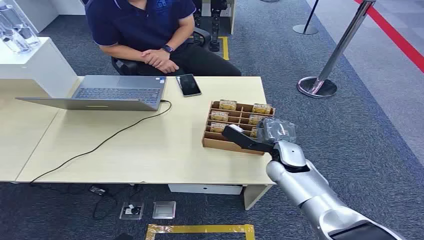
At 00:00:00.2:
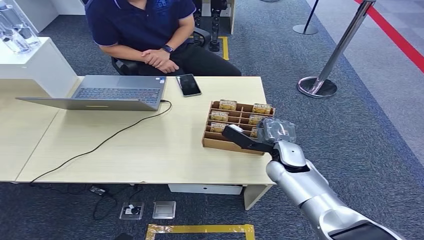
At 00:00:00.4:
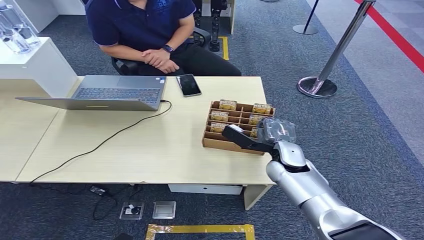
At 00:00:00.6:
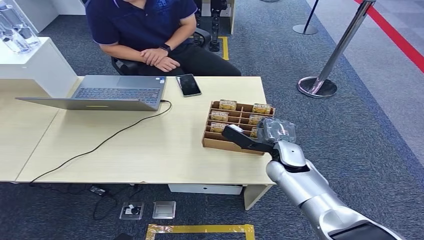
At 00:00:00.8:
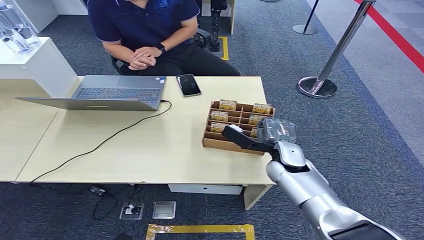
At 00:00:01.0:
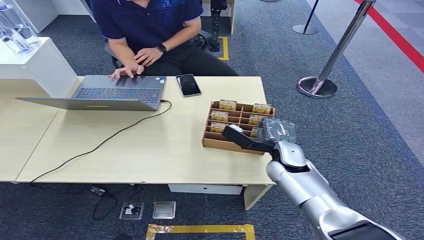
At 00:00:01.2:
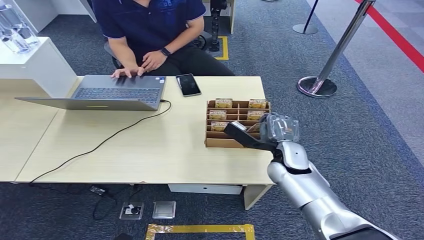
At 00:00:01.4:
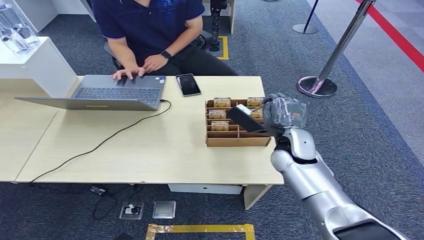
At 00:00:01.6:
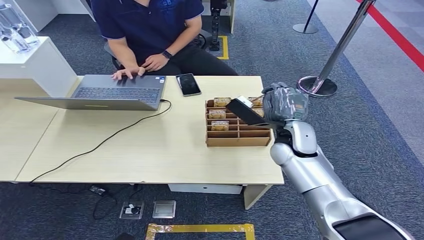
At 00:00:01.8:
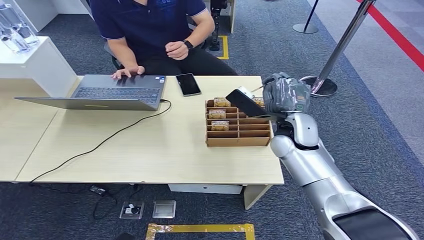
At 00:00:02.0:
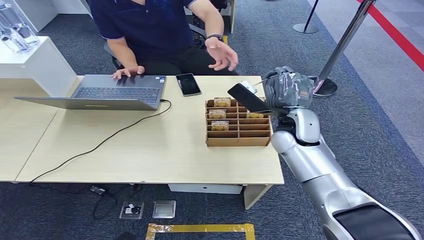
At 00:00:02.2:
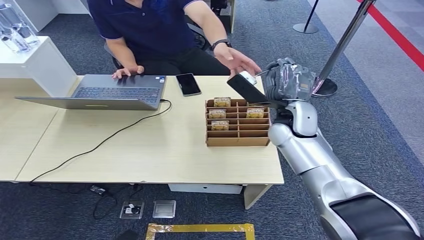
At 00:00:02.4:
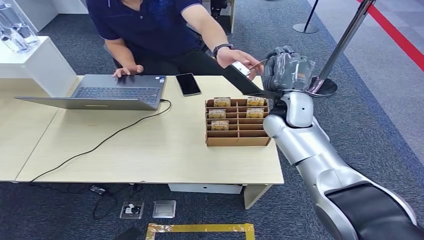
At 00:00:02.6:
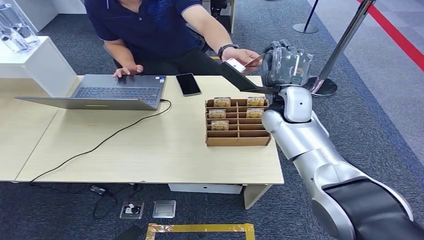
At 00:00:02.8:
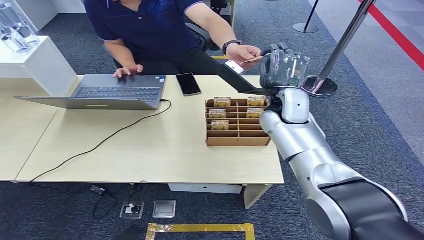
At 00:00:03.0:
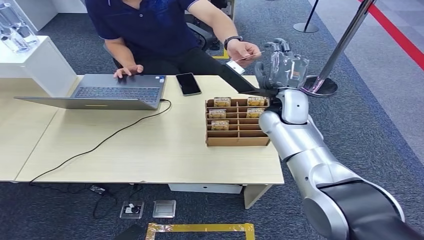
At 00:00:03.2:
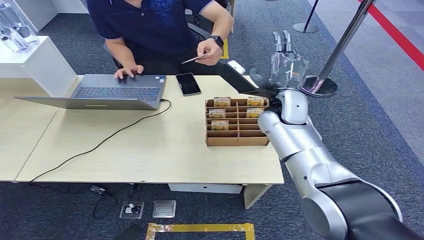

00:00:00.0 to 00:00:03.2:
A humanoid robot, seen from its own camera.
Step, 00:00:00.0 to 00:00:02.0: Pick up the key card from the card box.
Step, 00:00:02.2 to 00:00:03.2: Hand the key card to the target.
00:00:01.6 to 00:00:03.2: The right hand goes about 10 cm upward and forward.
